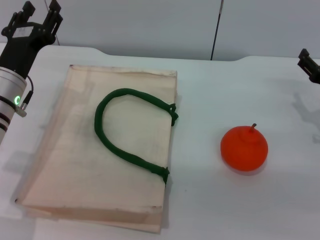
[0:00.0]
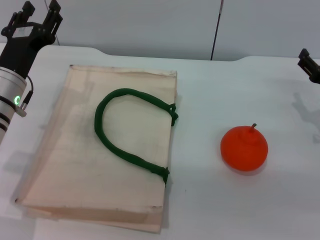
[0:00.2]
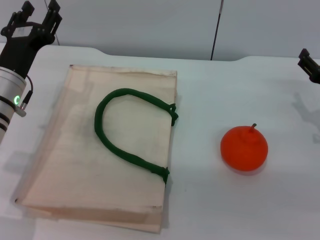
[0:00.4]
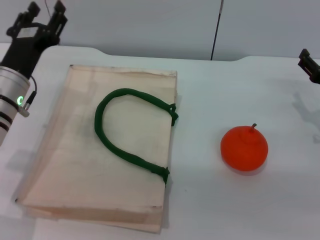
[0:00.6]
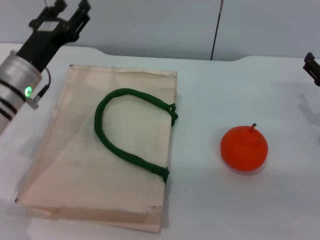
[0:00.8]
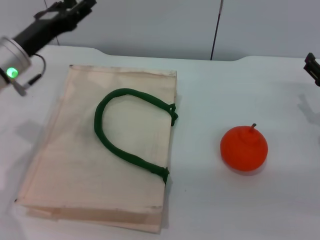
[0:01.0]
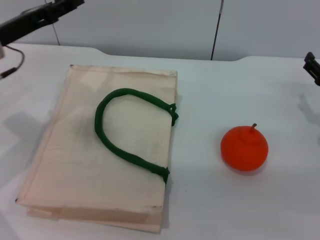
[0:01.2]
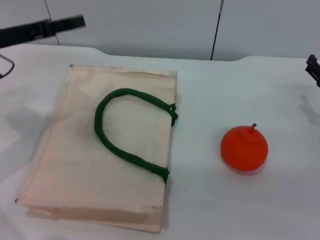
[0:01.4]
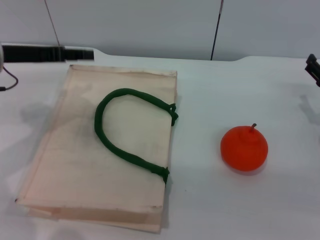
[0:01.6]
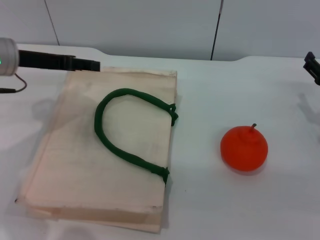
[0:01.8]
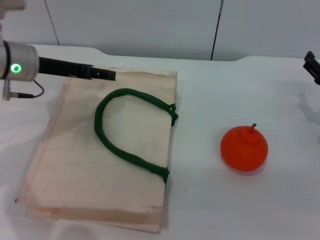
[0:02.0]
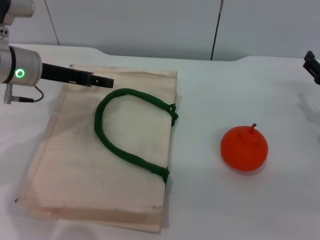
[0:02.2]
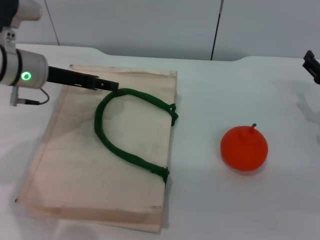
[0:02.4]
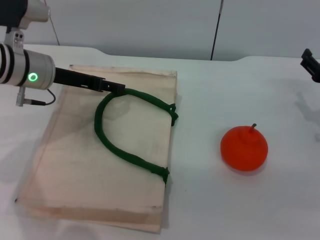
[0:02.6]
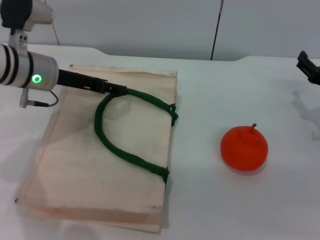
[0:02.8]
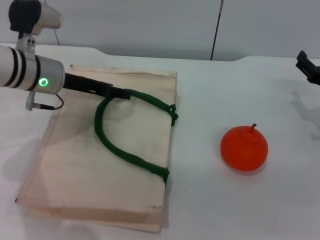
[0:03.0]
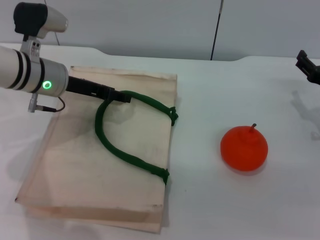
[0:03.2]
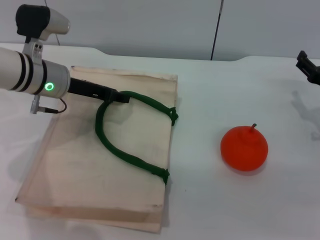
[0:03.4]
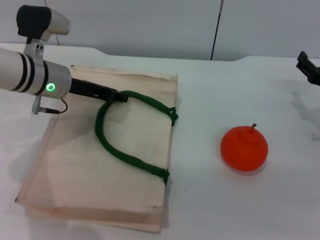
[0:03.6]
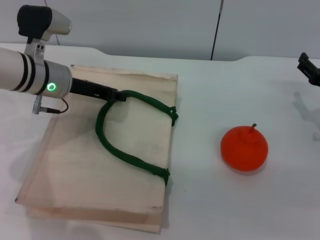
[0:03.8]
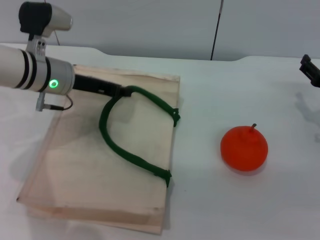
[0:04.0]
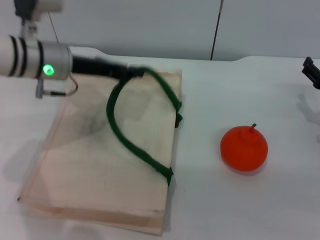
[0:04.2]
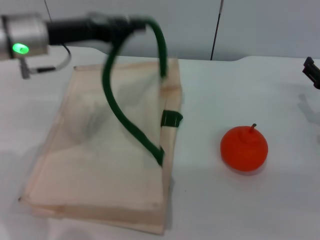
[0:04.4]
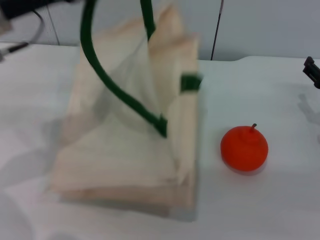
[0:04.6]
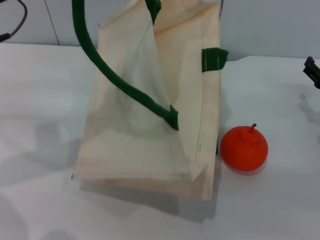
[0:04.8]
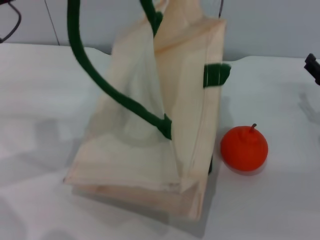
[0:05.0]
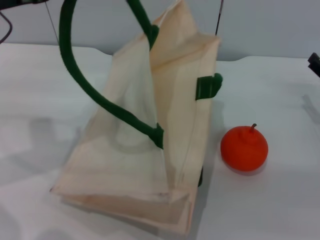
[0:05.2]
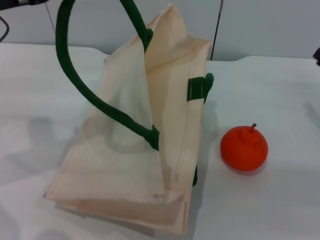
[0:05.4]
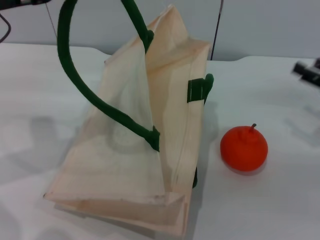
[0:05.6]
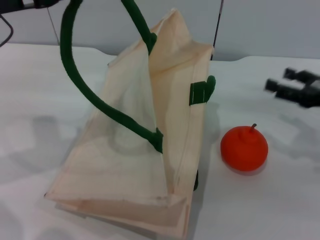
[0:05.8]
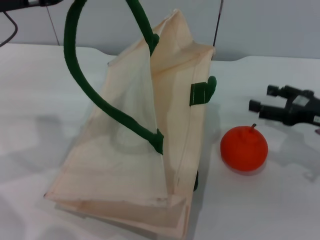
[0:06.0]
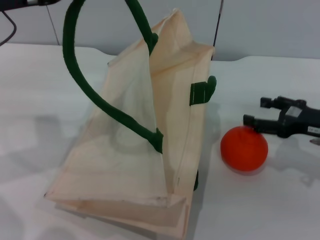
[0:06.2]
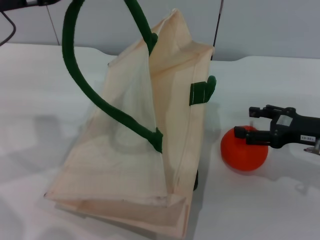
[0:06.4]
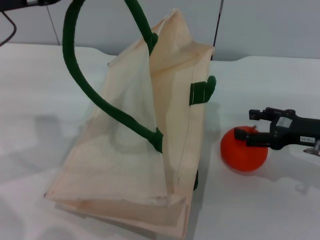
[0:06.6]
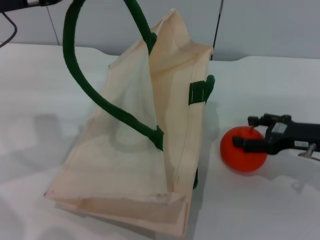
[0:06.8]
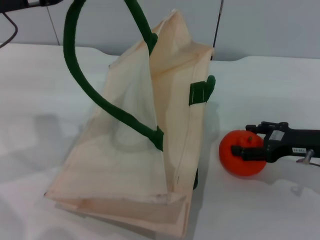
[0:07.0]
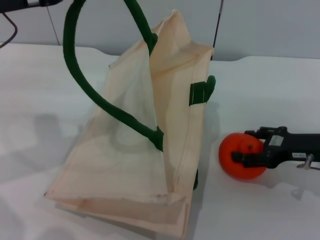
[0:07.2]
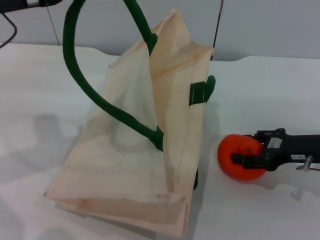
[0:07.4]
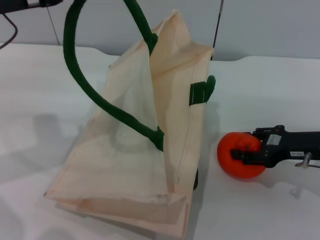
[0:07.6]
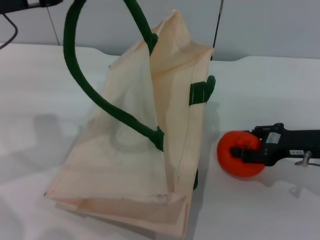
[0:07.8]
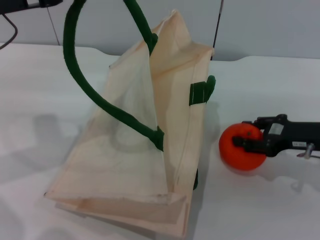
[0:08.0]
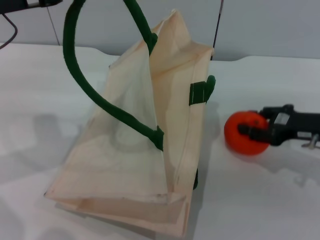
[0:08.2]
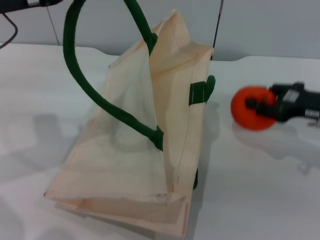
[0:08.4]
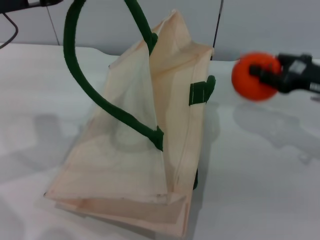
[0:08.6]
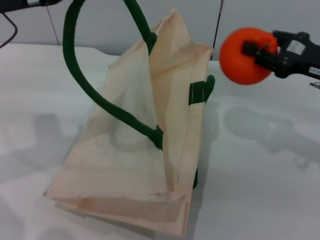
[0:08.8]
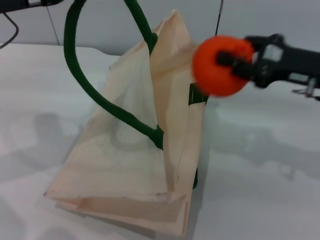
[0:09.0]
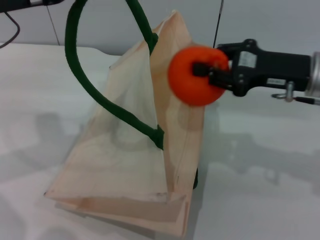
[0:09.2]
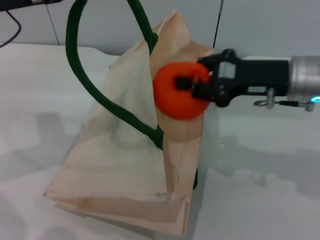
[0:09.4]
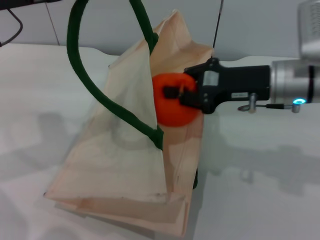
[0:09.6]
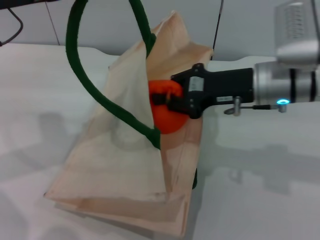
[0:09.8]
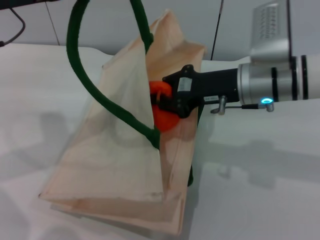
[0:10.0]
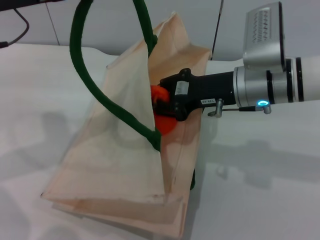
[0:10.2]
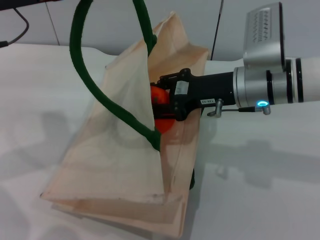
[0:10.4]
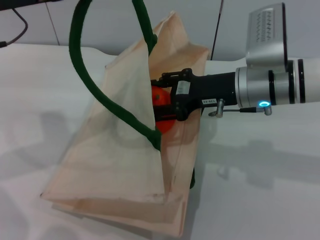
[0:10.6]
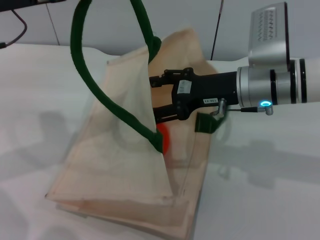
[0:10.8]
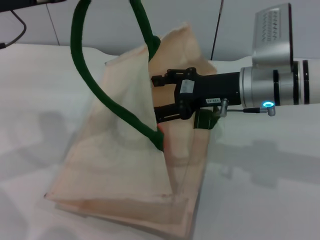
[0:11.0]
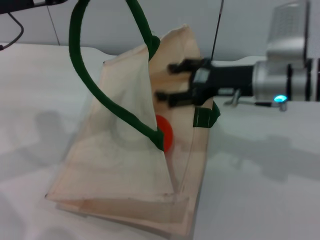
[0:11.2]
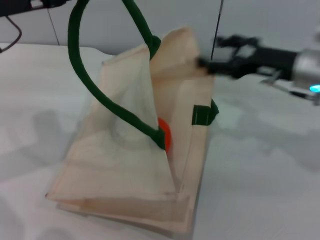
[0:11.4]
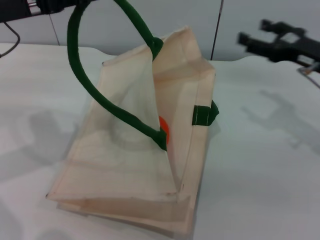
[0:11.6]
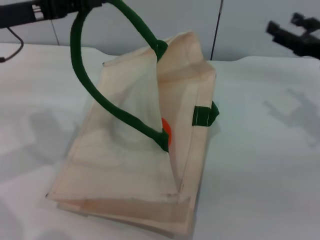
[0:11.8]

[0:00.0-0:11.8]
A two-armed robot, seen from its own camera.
Task of the whole recording: pick up the orange from the table and place it in the white handbag.
Step, 0:00.0 to 0:04.8: Lift the woven bag with the left gripper to open it.
Step, 0:05.0 to 0:08.4: Pick up the orange with the right gripper.
Step, 0:08.6 to 0:11.2: Place the orange into the woven bag with the right gripper.
0:00.0 to 0:01.4: The left gripper moves upward and to the left, about 10 cm.
0:01.4 to 0:03.0: The left gripper shifts approximately 10 cm to the right.
0:03.0 to 0:04.4: The left gripper is displaced upward by some 5 cm, and closes.
0:04.4 to 0:06.0: The left gripper is displaced to the left and upward by about 10 cm.
0:07.4 to 0:08.8: The right gripper heads upward, covering approximately 10 cm, and closes up.
0:08.8 to 0:10.4: The right gripper moves to the left, about 15 cm.
0:10.4 to 0:11.8: The right gripper moves to the right, roughly 15 cm, and opens up.

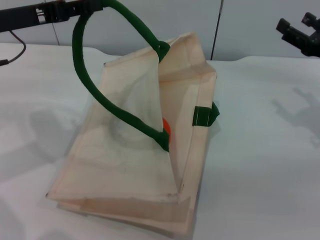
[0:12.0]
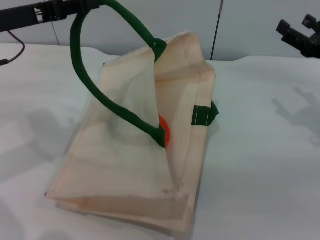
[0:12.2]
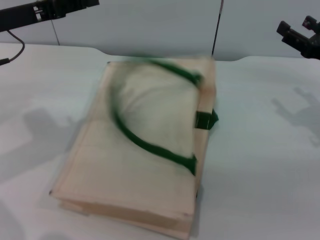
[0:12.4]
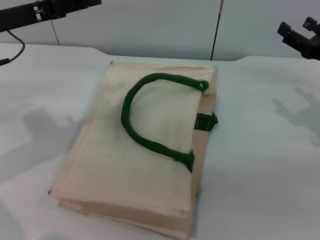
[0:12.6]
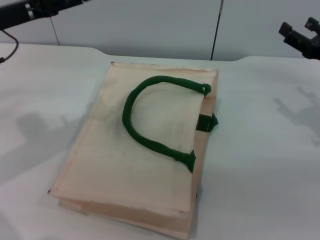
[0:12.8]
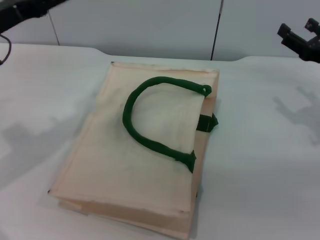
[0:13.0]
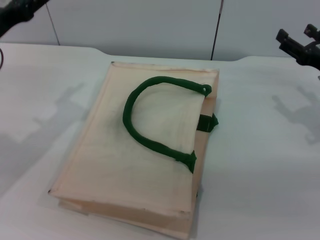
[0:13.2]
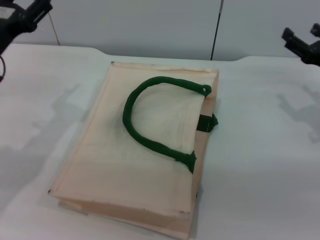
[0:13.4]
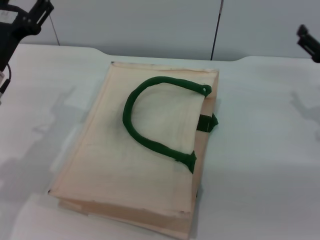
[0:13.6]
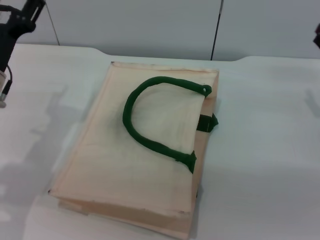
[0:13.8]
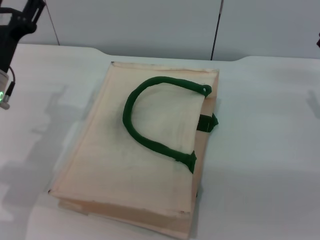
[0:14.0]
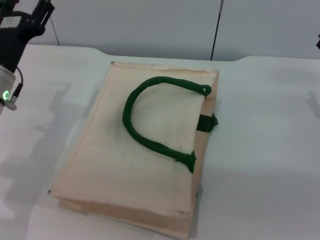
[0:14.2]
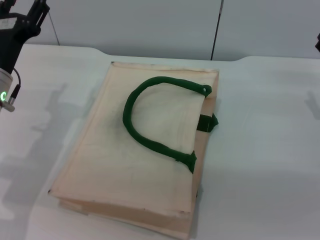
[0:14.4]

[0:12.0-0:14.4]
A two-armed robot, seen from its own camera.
Task of the whole recording: pick up the orange from the table and place it in the white handbag.
0:12.0 to 0:13.2: The left gripper goes roughly 5 cm downward, and opens.
0:13.2 to 0:14.4: The left gripper goes approximately 5 cm downward.
